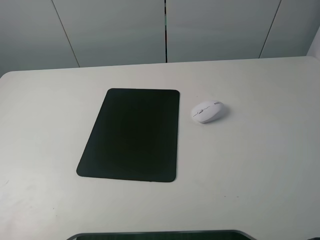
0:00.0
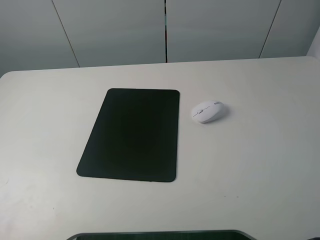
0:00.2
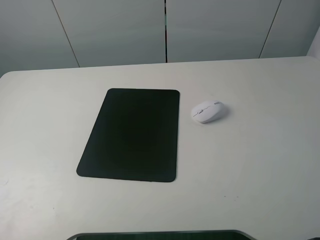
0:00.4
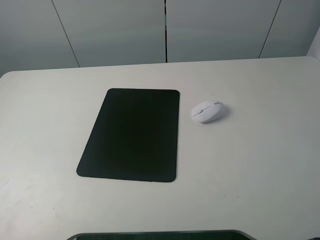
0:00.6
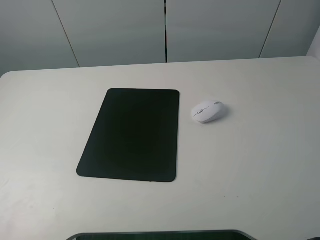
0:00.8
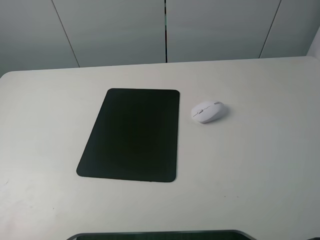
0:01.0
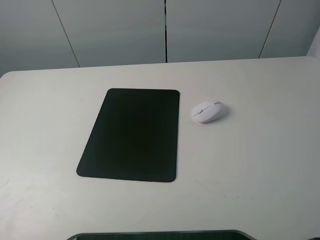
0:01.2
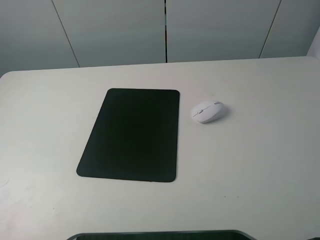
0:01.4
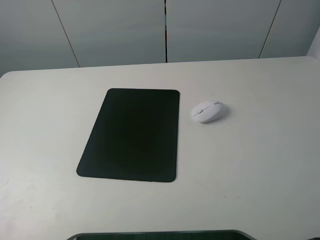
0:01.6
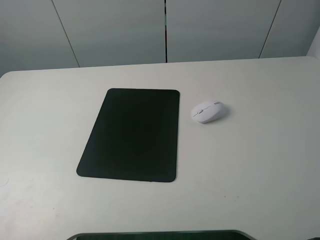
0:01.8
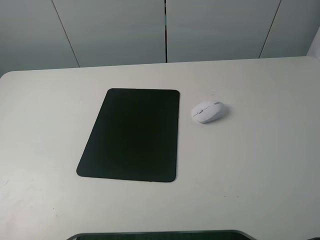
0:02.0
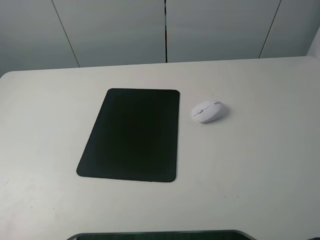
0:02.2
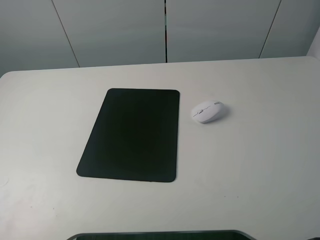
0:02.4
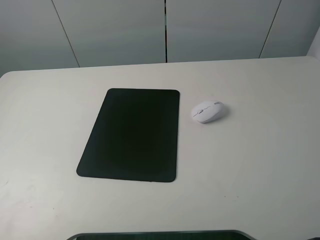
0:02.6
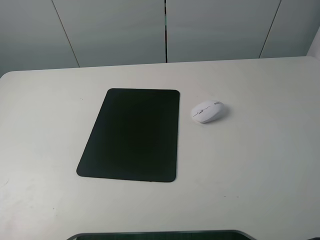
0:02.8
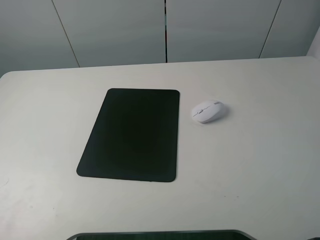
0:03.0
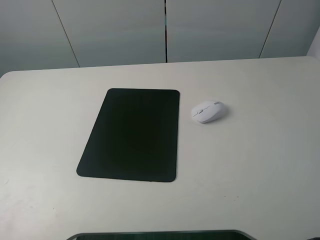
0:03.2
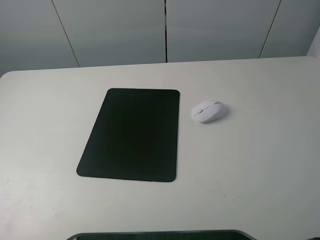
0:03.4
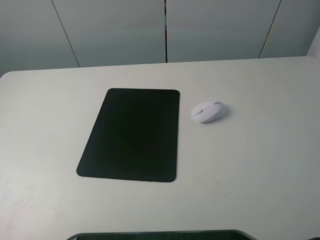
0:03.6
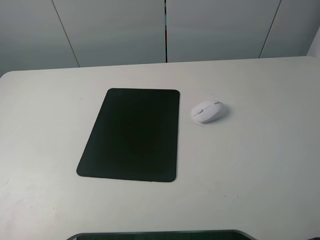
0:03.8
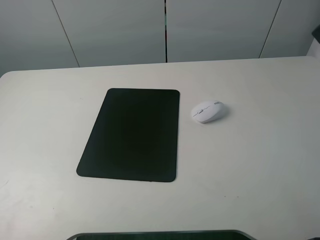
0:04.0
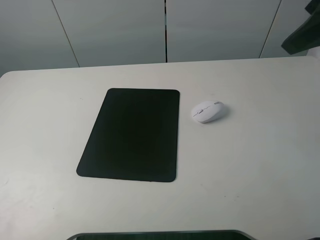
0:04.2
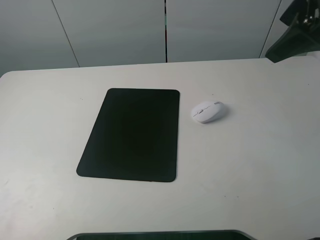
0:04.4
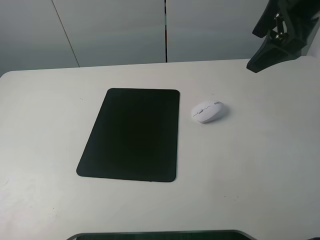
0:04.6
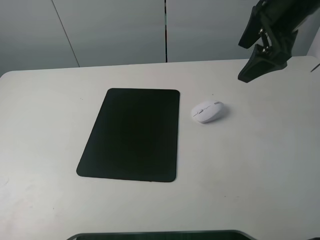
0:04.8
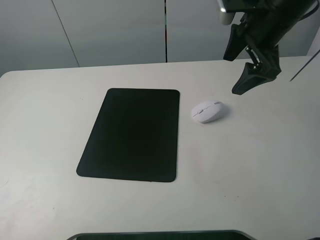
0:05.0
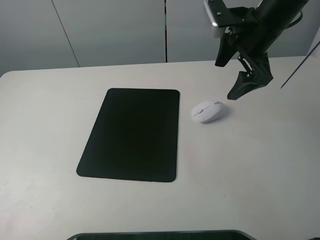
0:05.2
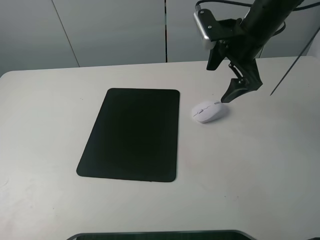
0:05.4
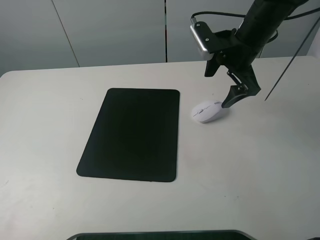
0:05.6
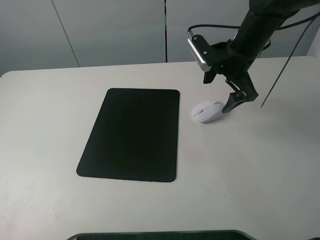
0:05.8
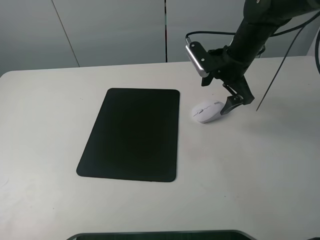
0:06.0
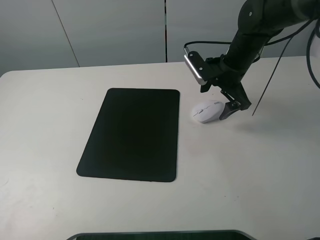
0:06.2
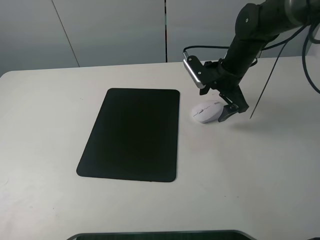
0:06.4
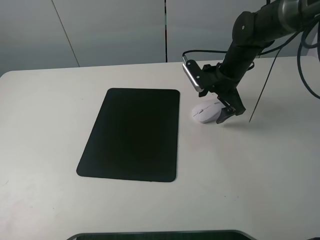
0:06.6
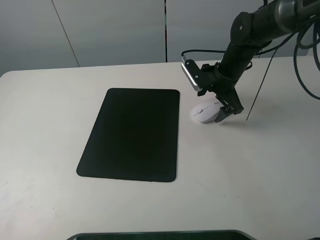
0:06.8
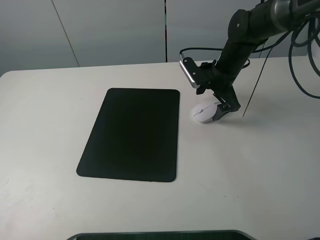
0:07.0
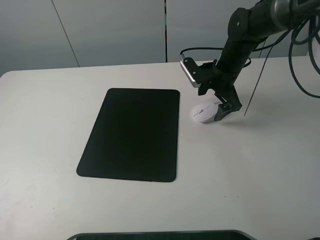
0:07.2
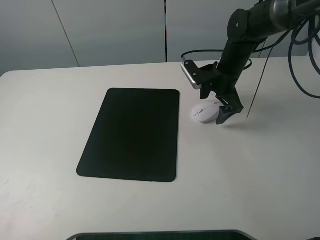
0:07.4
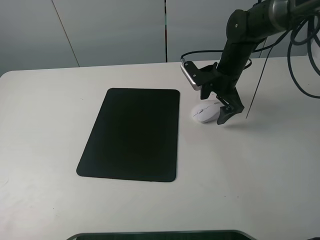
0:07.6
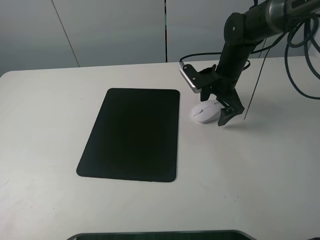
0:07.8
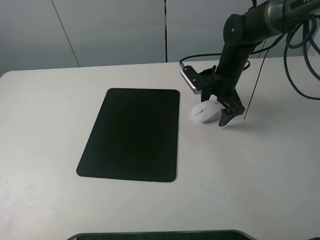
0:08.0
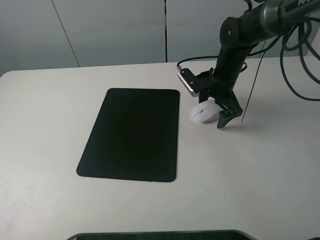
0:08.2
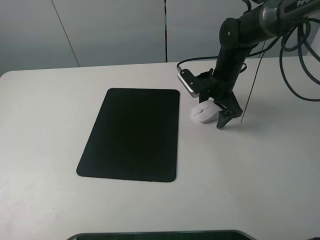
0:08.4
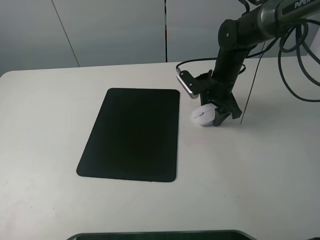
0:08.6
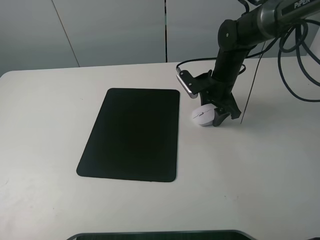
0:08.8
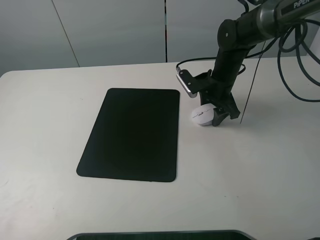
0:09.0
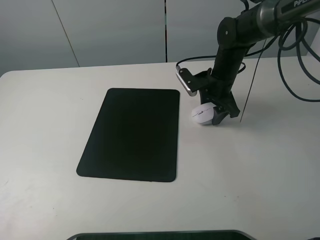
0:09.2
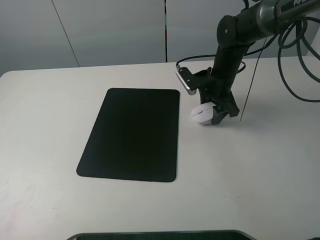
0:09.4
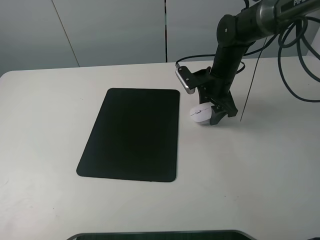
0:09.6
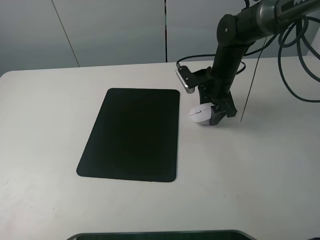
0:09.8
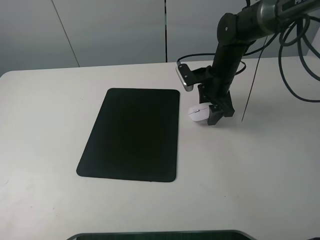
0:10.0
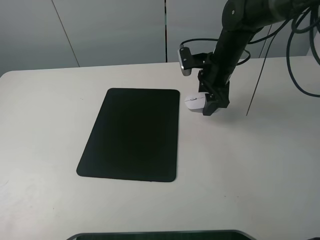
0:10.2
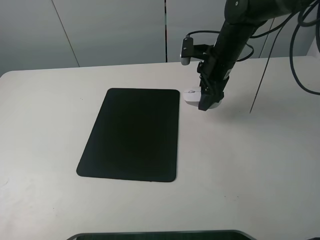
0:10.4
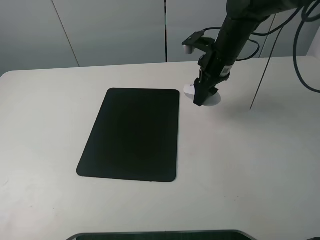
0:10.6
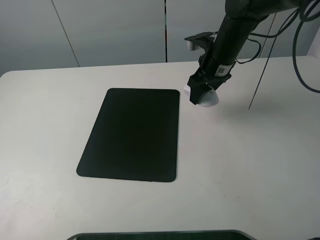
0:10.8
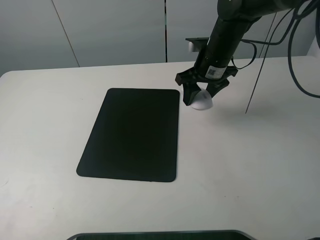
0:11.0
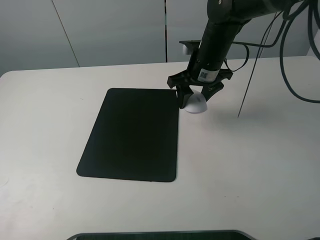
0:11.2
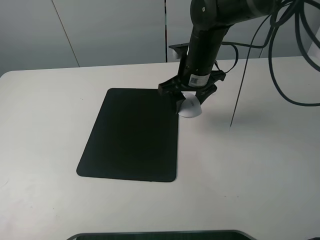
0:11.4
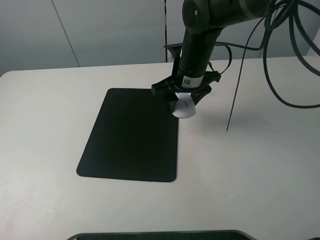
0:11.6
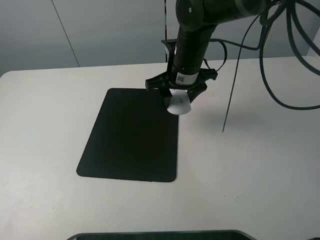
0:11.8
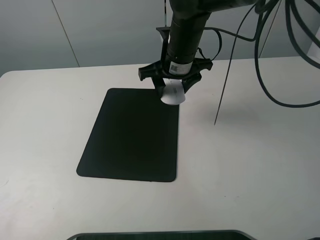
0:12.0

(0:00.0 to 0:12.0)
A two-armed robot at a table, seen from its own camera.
Step, 0:00.0 - 0:09.2: Grasp the mouse with the right gripper.
0:00.0 - 0:01.6: Both grippers stay put.
0:03.0 - 0:04.4: The right gripper is displaced forward by approximately 25 cm.
0:04.4 - 0:06.0: The right gripper moves downward and forward, some 20 cm.
0:06.0 - 0:07.6: The right gripper shifts by about 5 cm.
0:07.6 - 0:09.0: The right gripper closes up.
0:09.0 - 0:10.4: The right gripper heads upward, covering some 5 cm.
0:10.4 - 0:12.0: The right gripper goes about 10 cm to the left.

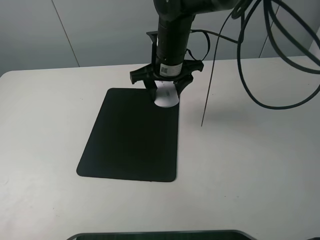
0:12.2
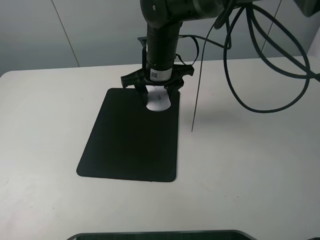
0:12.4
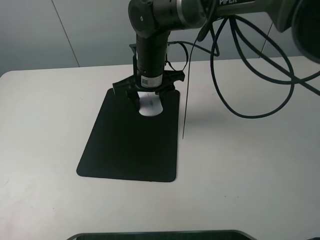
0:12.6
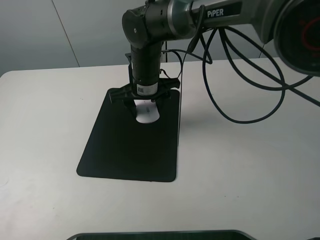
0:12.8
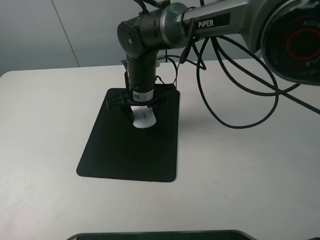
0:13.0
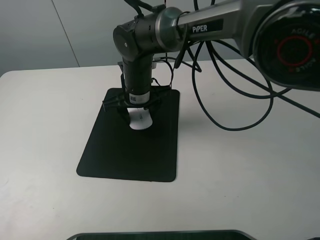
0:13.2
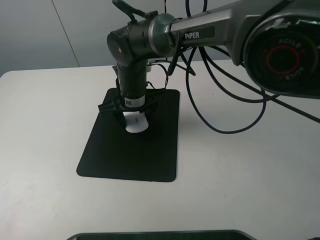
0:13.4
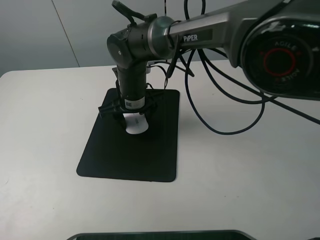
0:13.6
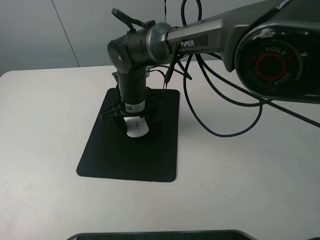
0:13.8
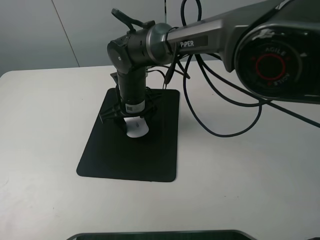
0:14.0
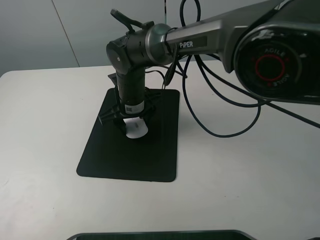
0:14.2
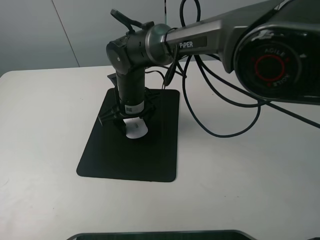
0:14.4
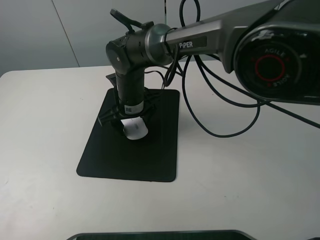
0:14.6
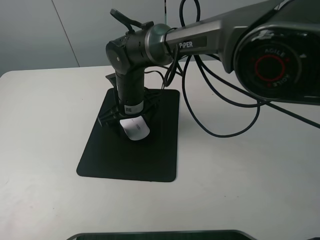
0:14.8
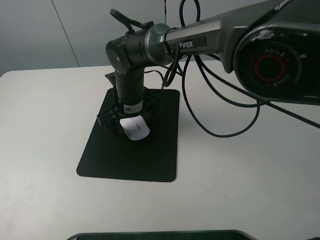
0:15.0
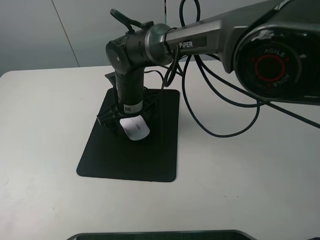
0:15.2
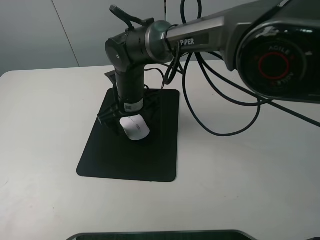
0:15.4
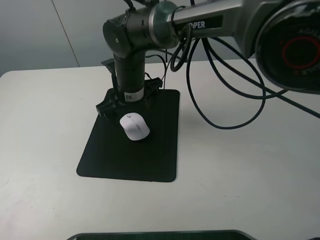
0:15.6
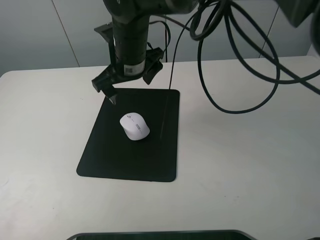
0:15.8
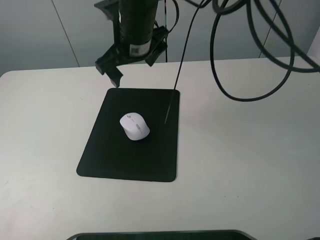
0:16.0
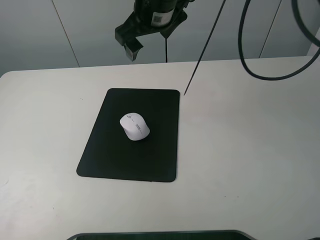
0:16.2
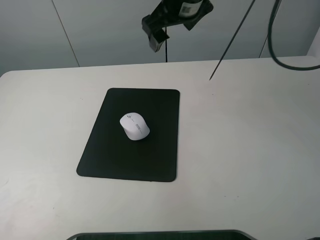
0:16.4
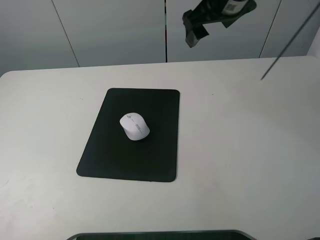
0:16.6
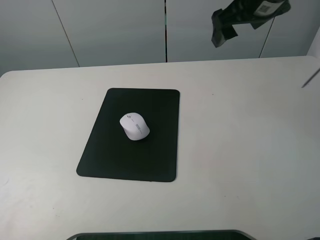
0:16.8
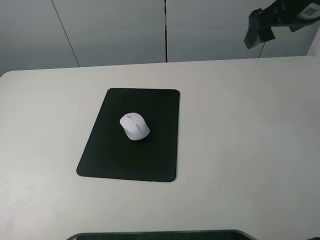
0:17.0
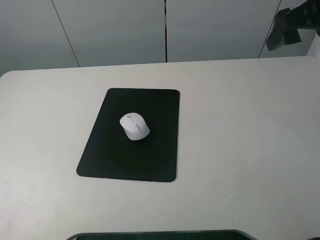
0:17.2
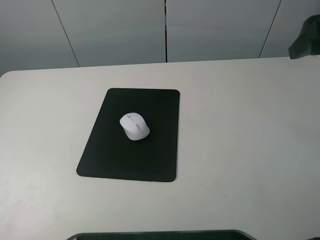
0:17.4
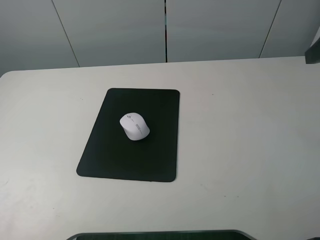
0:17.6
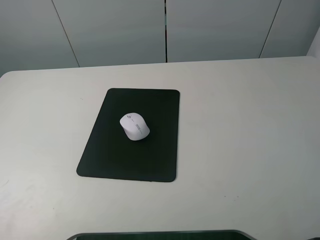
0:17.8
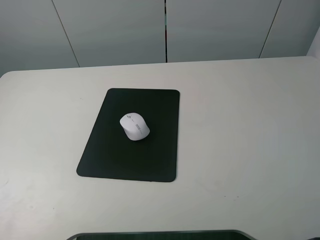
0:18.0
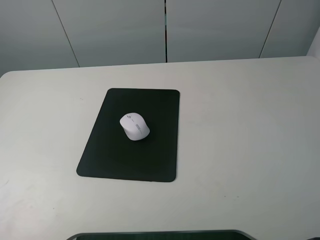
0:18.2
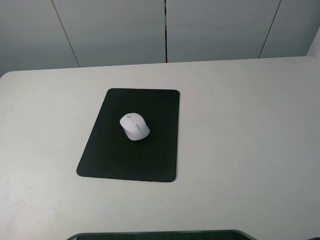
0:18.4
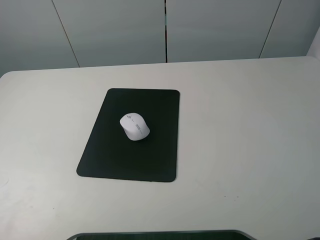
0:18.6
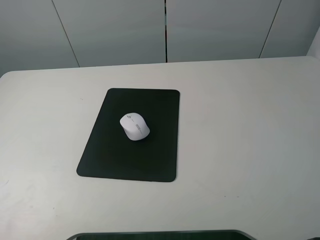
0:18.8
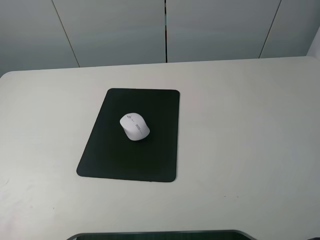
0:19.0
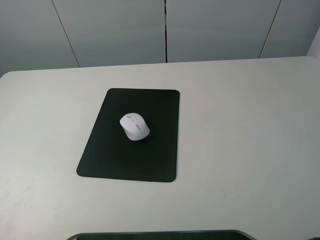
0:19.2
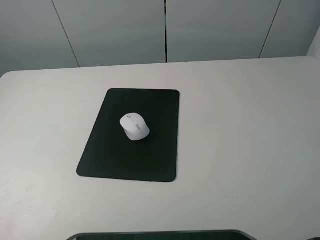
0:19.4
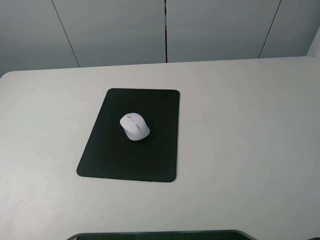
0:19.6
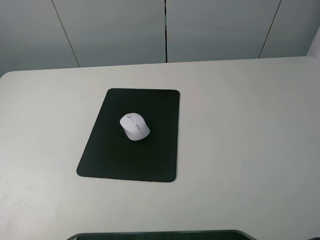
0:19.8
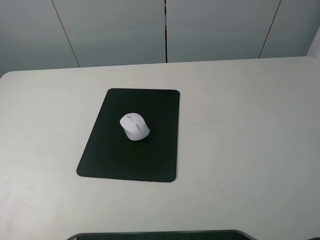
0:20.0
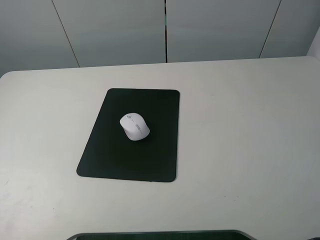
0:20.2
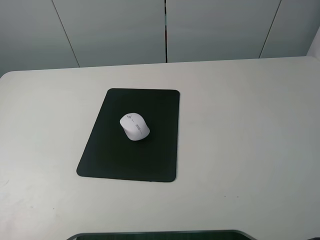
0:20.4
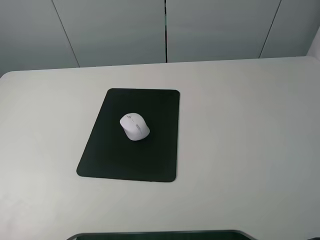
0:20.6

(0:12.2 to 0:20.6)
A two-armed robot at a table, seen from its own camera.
Step, 0:12.2 - 0:14.8: Place the mouse on the mouse mat with the right gripper.
0:12.2 - 0:13.6: The right gripper travels to the left and downward by roughly 10 cm.
0:13.6 - 0:15.0: The right gripper opens.
0:15.0 - 0:16.4: The right gripper is displaced upward and to the right by some 25 cm.
0:16.4 - 0:17.8: The right gripper moves to the right and backward, approximately 30 cm.
0:19.2 - 0:20.6: The two grippers keep their place.
